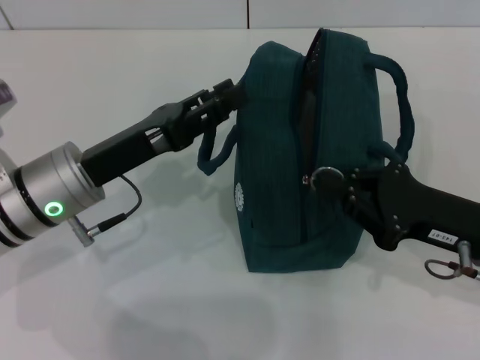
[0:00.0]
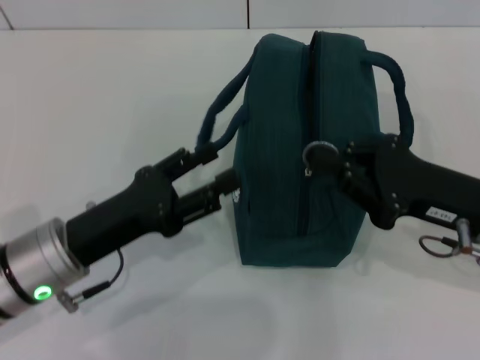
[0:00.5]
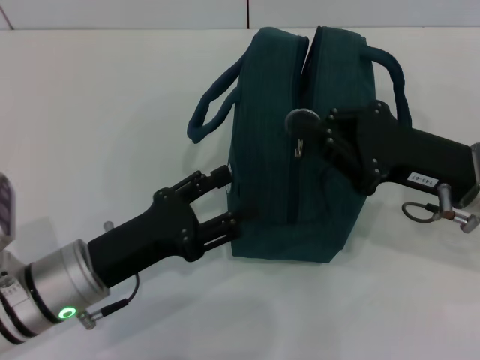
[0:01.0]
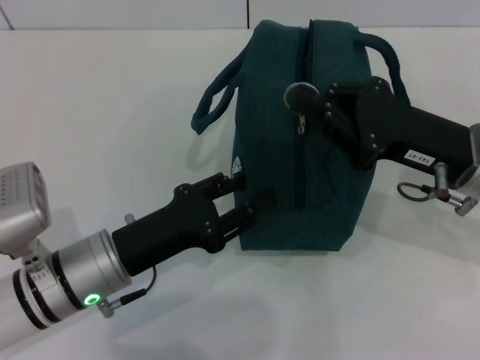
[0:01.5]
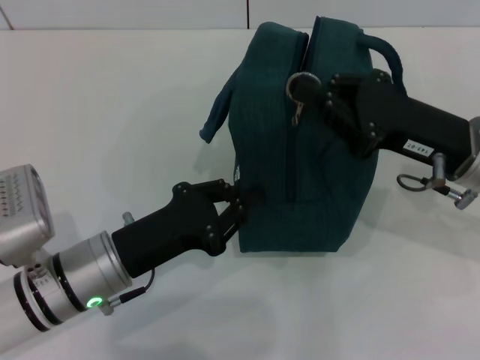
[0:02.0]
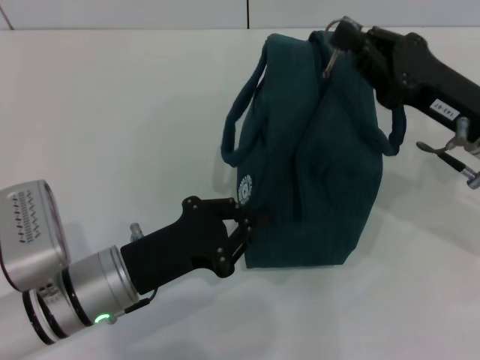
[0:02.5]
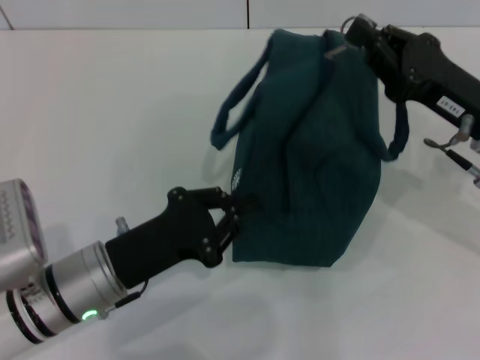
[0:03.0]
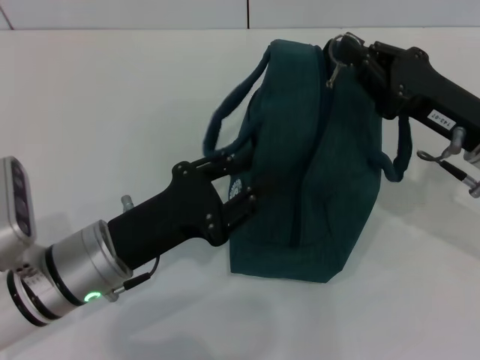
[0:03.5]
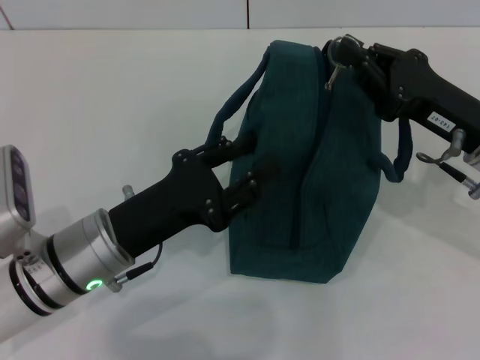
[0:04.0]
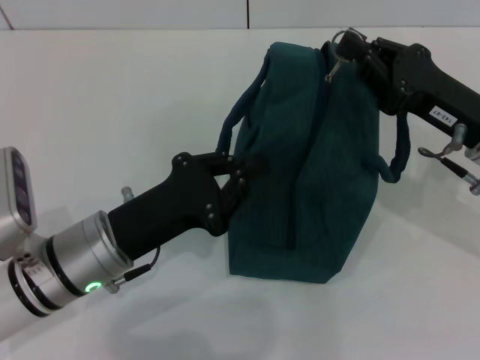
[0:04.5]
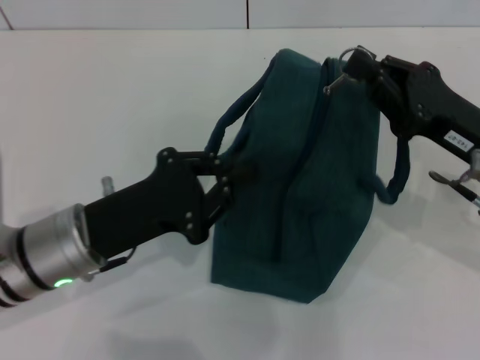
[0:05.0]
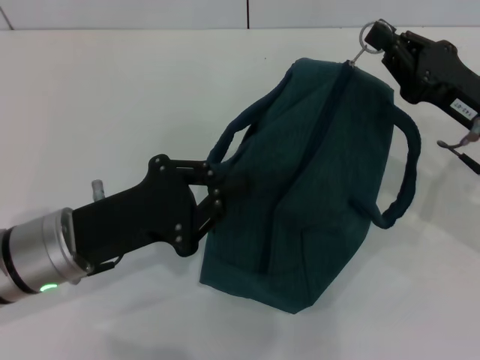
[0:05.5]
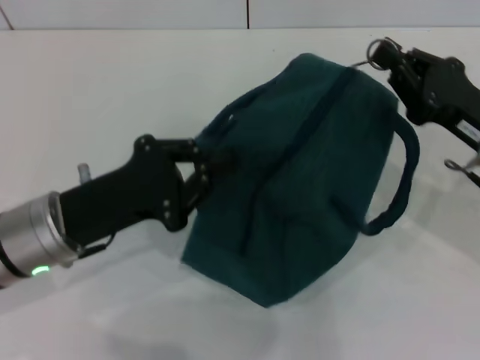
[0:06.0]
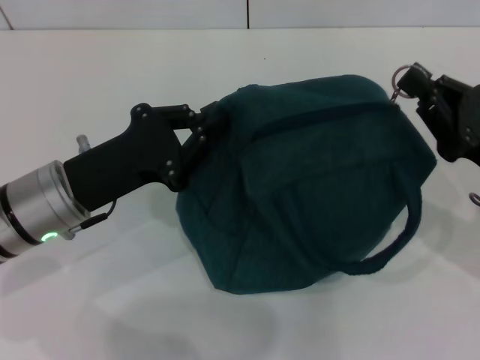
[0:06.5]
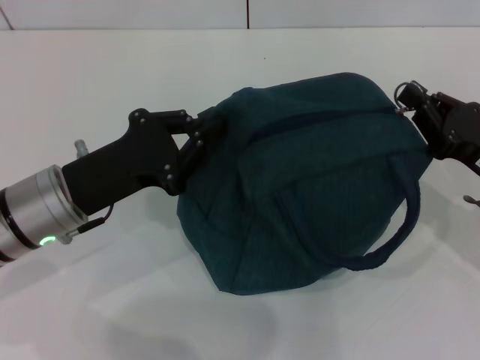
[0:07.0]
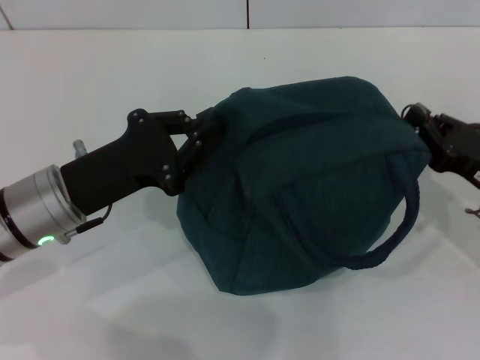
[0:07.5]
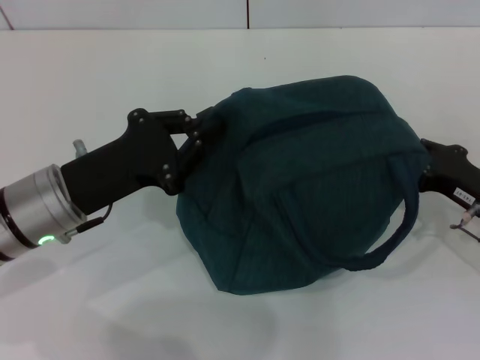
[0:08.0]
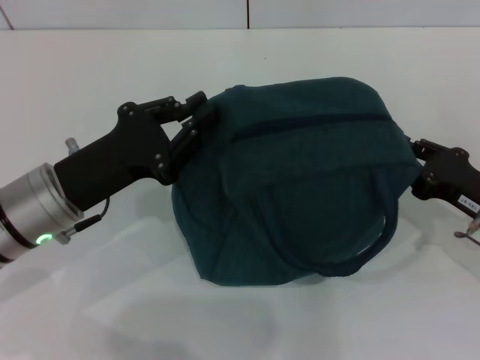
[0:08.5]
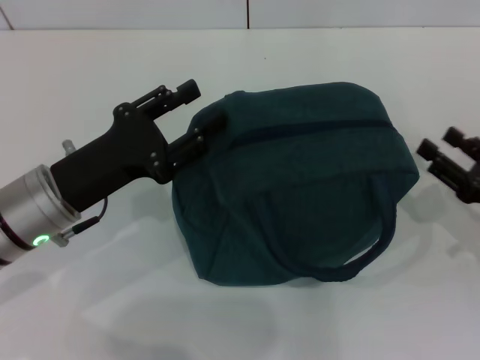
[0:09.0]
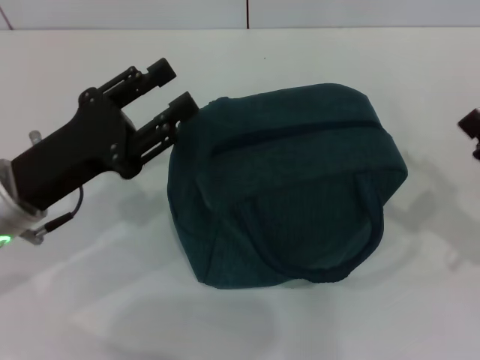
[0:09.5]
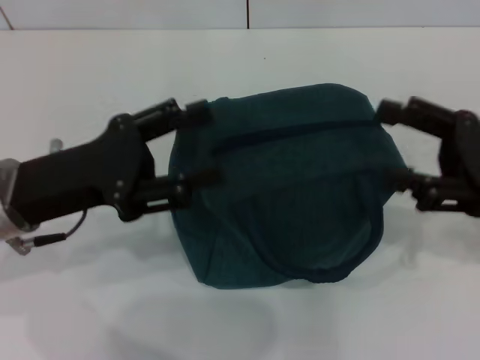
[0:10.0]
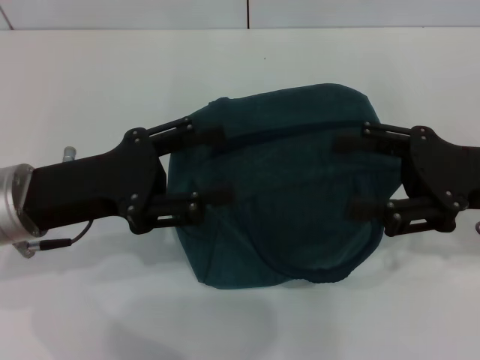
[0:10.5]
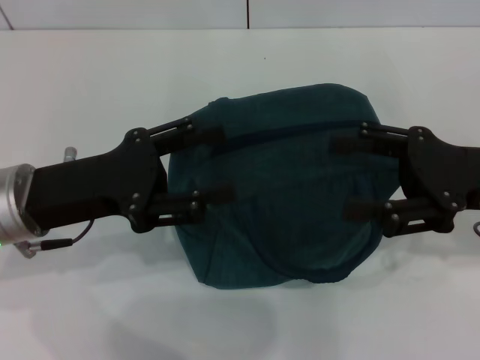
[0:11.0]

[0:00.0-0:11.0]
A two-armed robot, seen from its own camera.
Step, 0:00.5 to 0:08.0: Zip up the lunch bag with your right hand.
Step, 0:08.5 to 0:09.5: Hold the lunch bag with your left hand.
0:00.0 to 0:02.0: The right gripper is displaced forward by roughly 5 cm. The left gripper shifts about 10 cm downward and backward, and opens and closes again.
0:03.5 to 0:05.5: The left gripper opens, then closes once more.
0:05.5 to 0:07.5: The right gripper moves downward, about 5 cm.
0:07.5 to 0:09.0: The left gripper opens its fingers, while the right gripper opens up.
0:09.0 to 0:11.0: The left gripper opens up. The right gripper shifts about 10 cm upward and to the left, and opens up.
